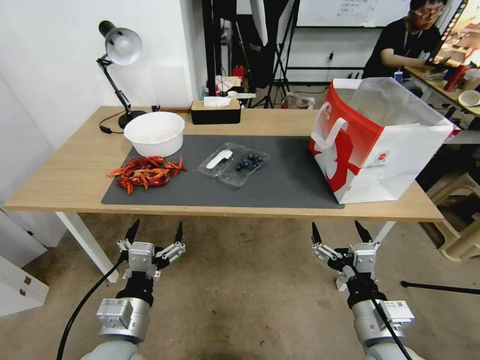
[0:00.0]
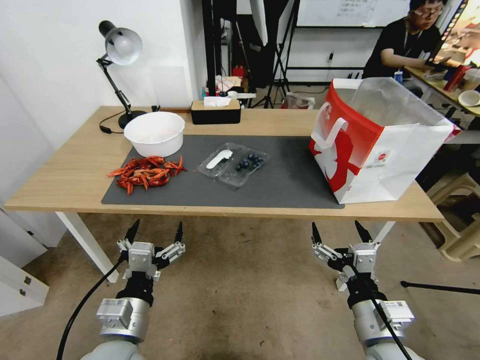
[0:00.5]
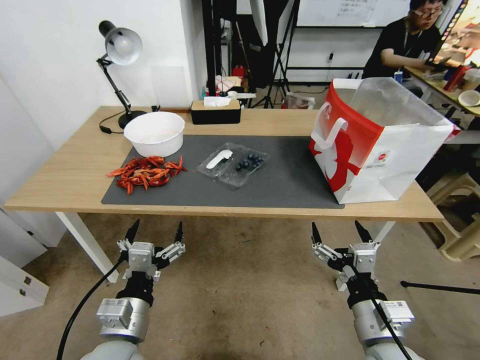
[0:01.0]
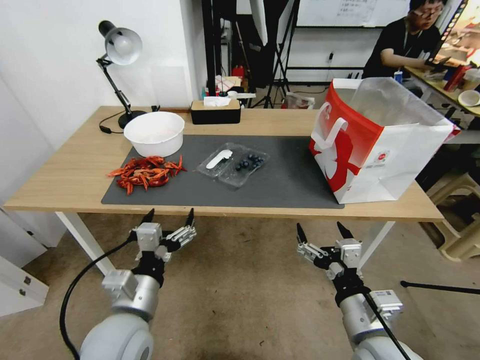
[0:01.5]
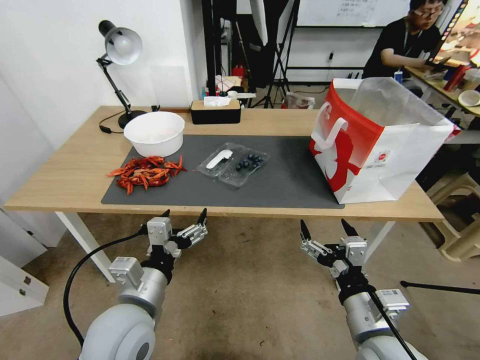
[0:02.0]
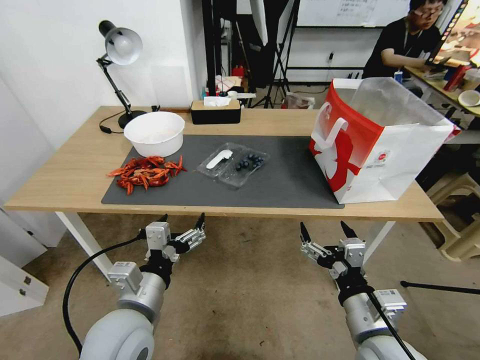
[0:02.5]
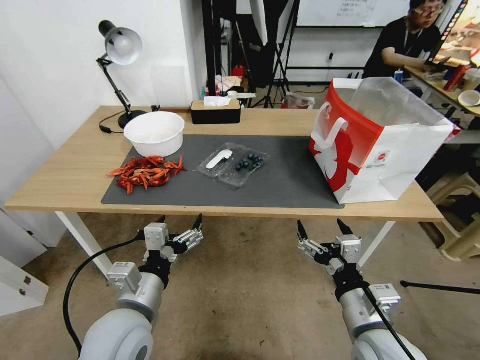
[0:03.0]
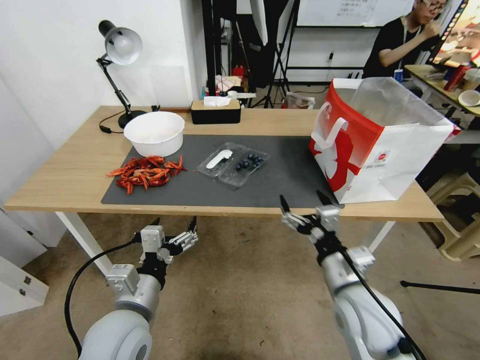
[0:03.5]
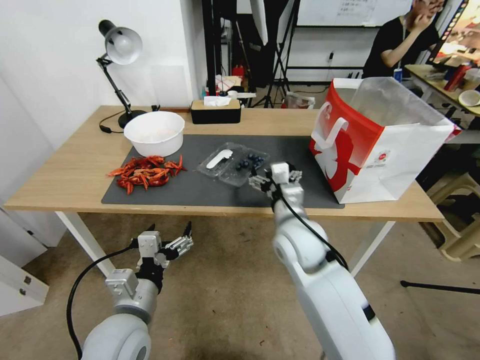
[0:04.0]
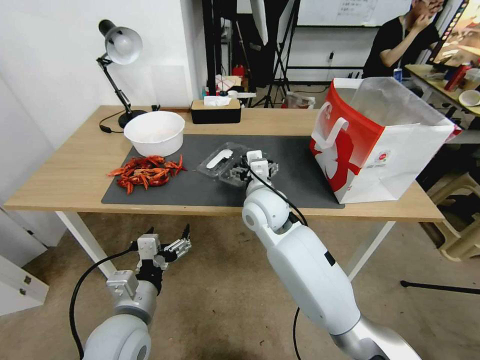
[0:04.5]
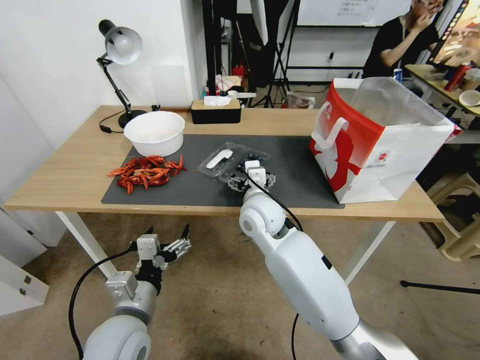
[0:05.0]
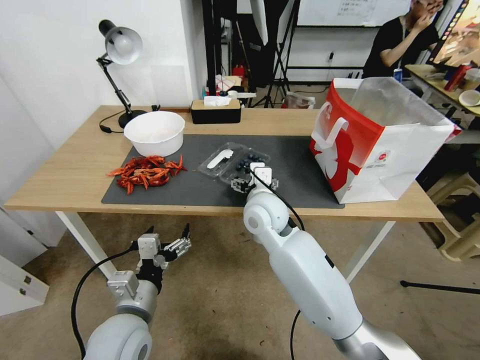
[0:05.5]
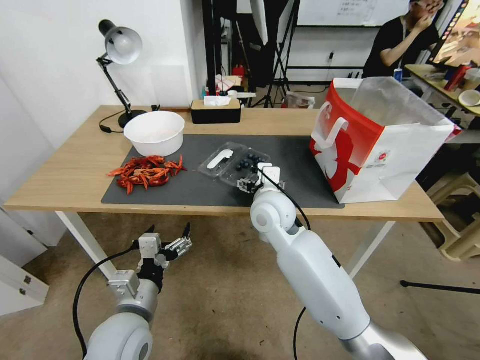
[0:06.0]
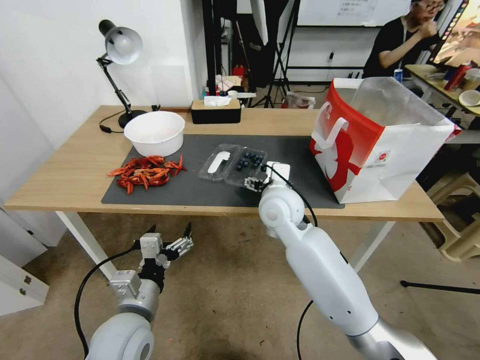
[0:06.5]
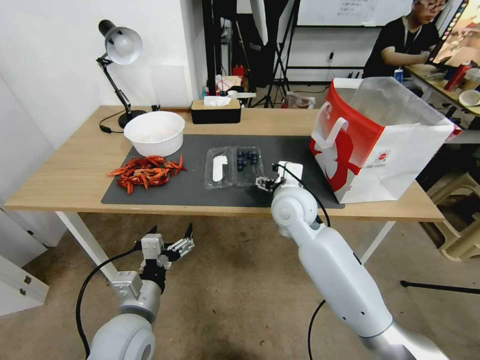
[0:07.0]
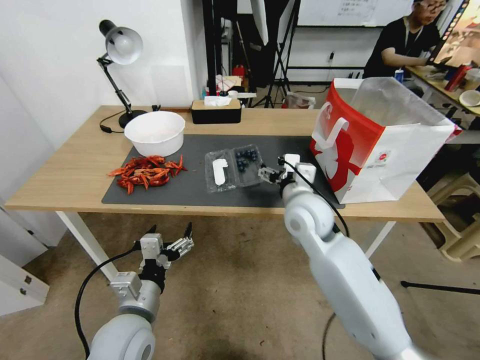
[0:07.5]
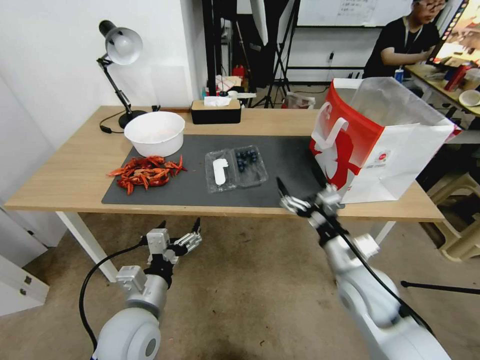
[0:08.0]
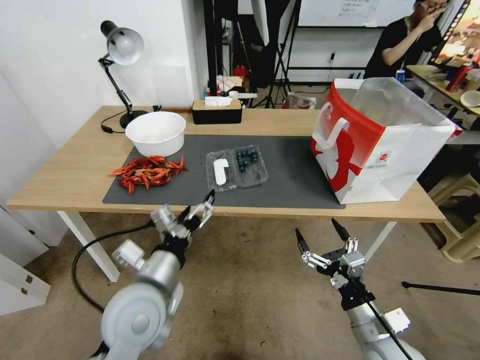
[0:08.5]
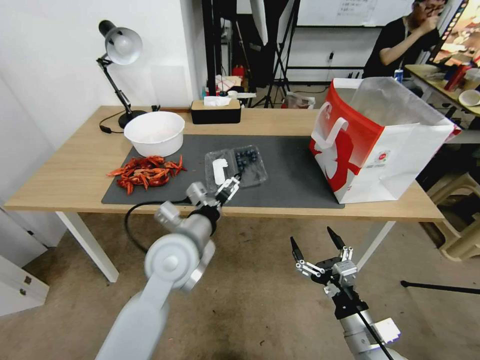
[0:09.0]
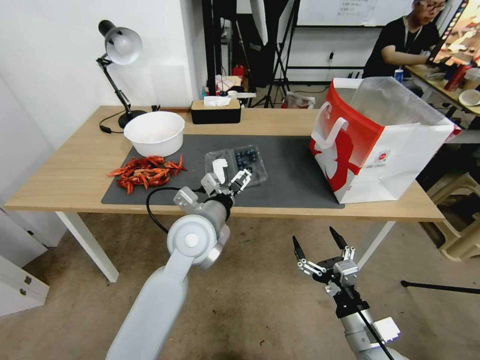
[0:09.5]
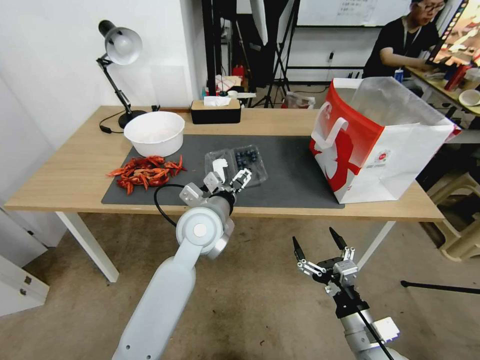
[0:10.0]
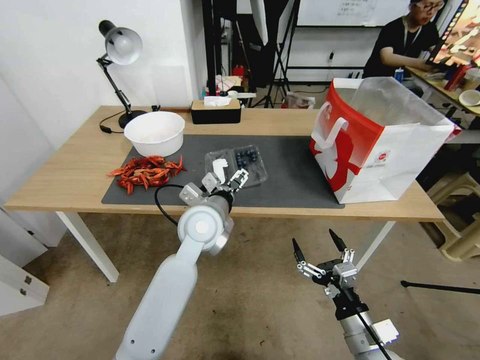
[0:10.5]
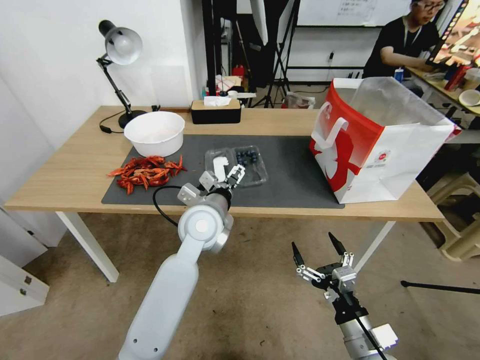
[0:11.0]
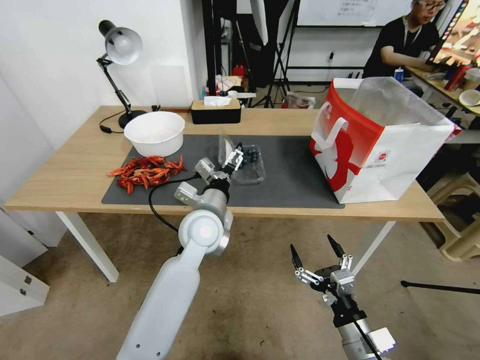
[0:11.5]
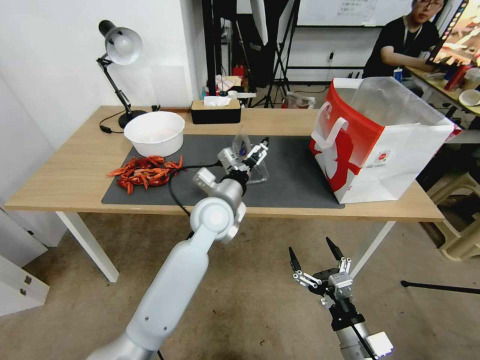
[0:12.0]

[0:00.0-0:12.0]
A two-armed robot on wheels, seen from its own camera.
Task of the whole recording: Close the takeout container lid, then place the container into the takeout bag.
2.0 to 4.0 s: The right gripper heads forward and to the left, covering roughly 20 cm.
4.0 to 6.0 s: The right gripper goes approximately 5 cm forward.
6.0 to 8.0 s: The right gripper shifts some 25 cm to the right and backward.
8.0 to 10.0 s: The left gripper goes about 20 cm forward, to the right and upward; the right gripper shifts roughly 15 cm backward and downward.

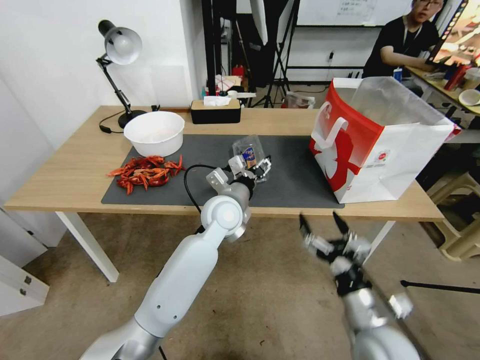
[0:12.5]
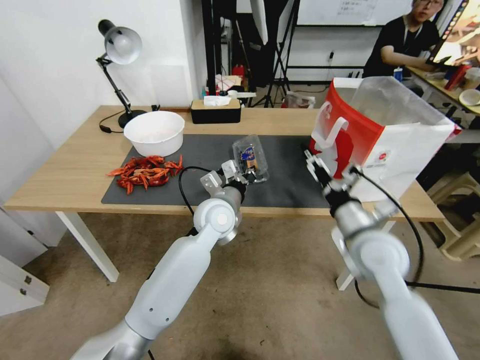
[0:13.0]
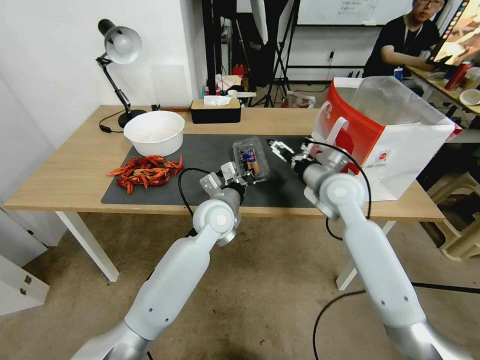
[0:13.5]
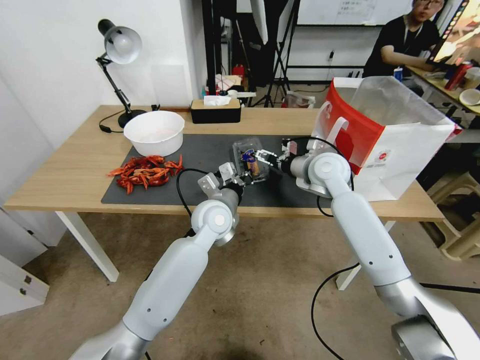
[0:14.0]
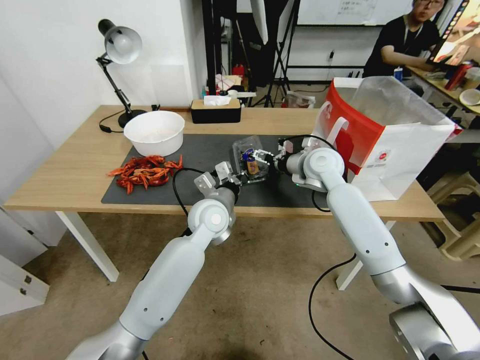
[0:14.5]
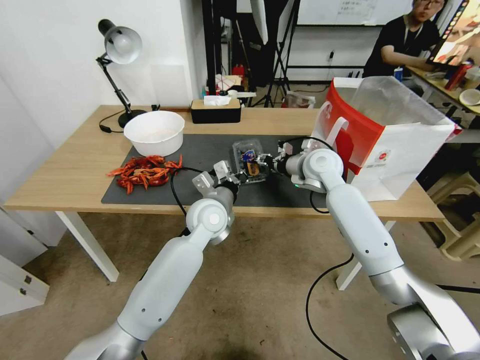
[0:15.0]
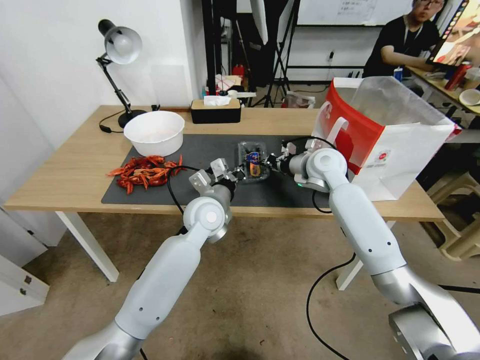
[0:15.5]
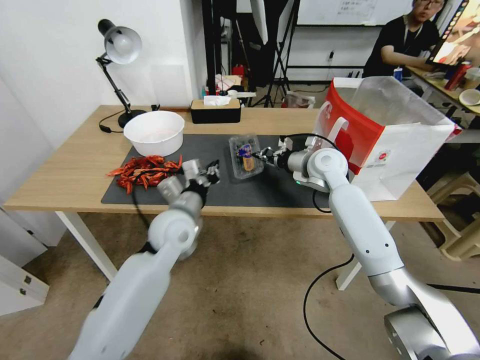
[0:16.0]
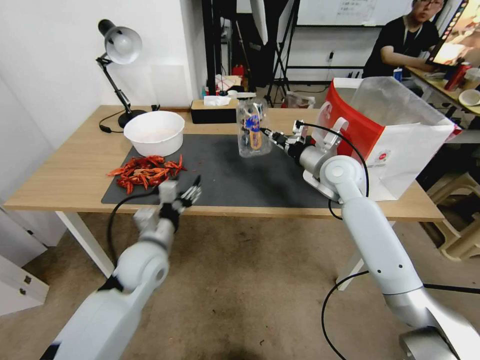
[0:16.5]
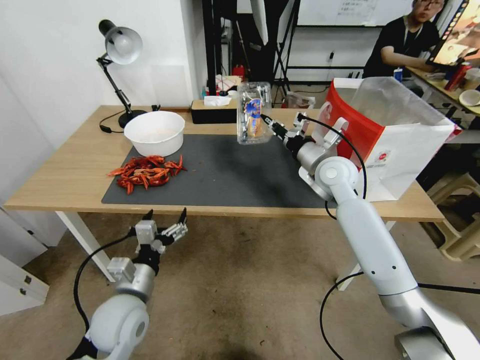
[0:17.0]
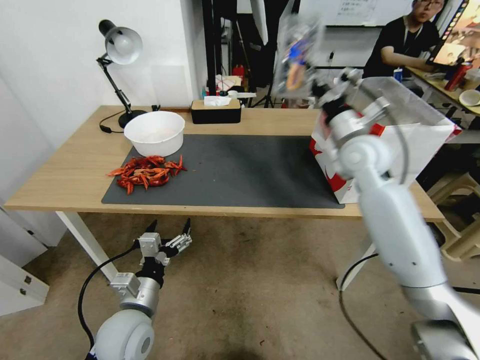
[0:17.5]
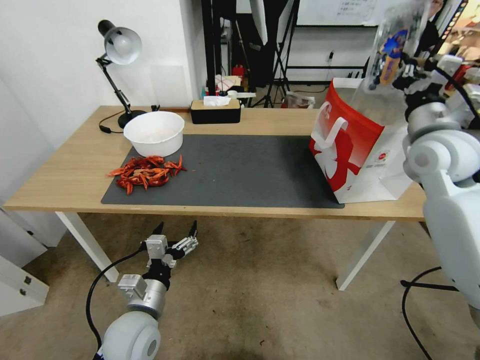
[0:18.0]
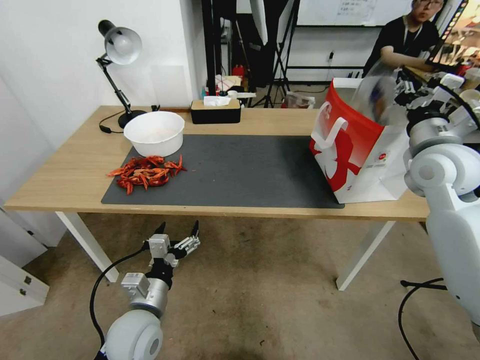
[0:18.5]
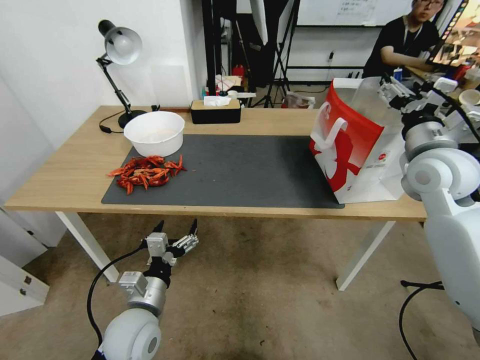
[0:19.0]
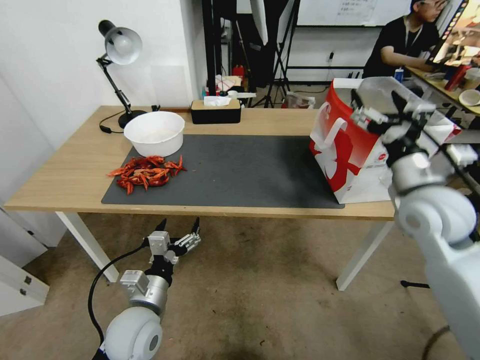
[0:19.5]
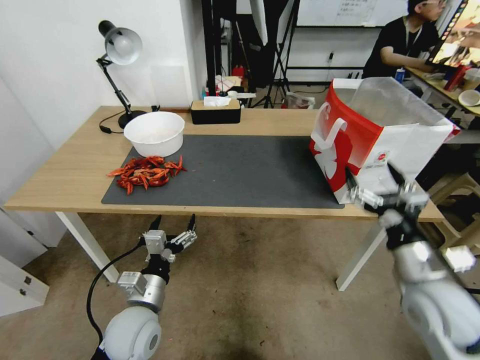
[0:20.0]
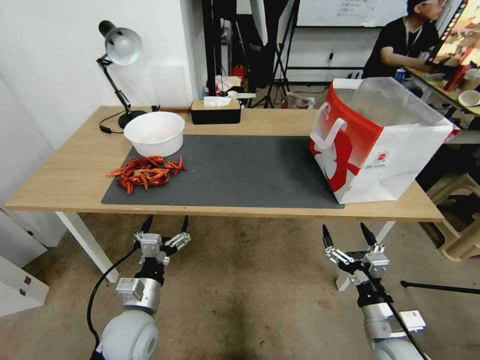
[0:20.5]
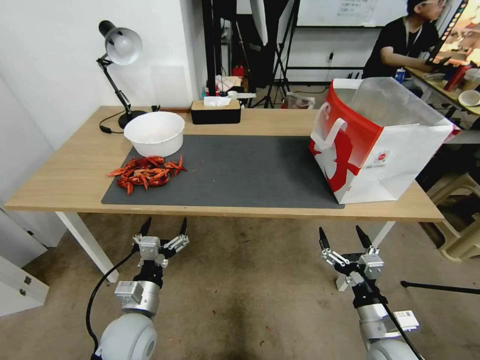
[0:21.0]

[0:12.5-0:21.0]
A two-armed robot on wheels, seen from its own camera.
Task of the whole recording: Close the takeout container lid, then place the container into the takeout bag.
12.5 to 14.5 s: The left gripper closes up. Meanwhile the right gripper shifts approximately 40 cm forward and upward.
14.5 to 16.5 s: The right gripper closes up. Meanwhile the left gripper shifts approximately 15 cm to the left and backward, and opens up.
16.5 to 19.0 s: The left gripper shifts about 15 cm backward and downward, and opens; the right gripper shifts approximately 15 cm to the right, upward and backward, and opens its fingers.
19.0 to 21.0 s: The right gripper heads downward and backward, covering approximately 35 cm.

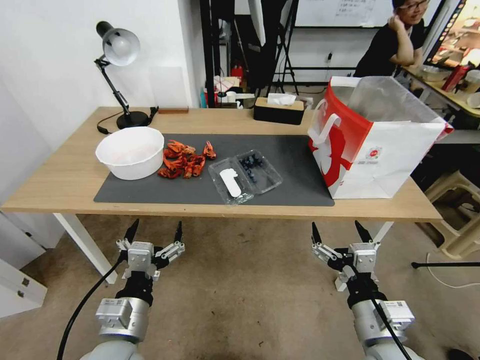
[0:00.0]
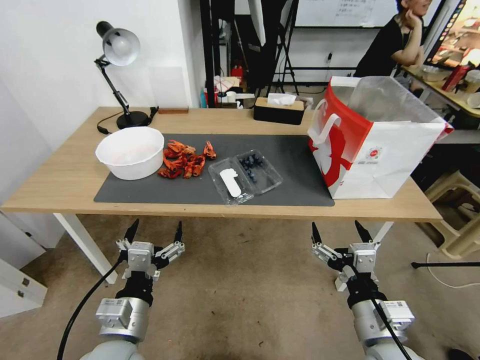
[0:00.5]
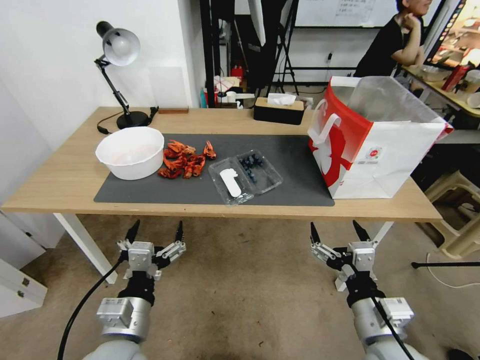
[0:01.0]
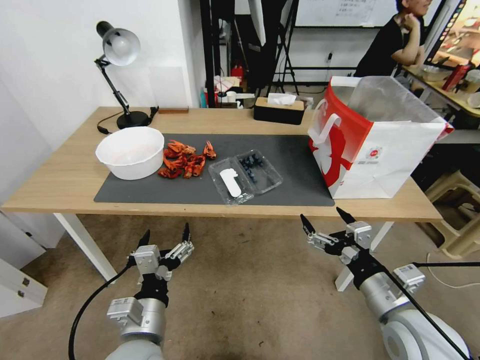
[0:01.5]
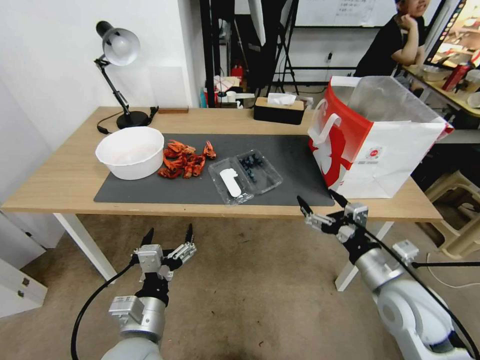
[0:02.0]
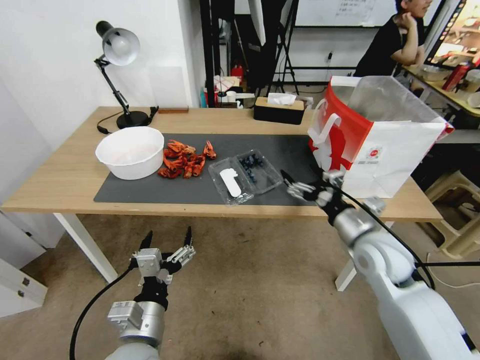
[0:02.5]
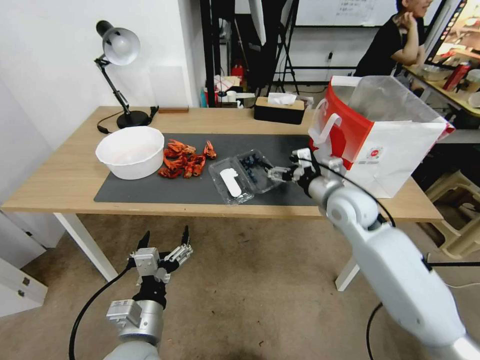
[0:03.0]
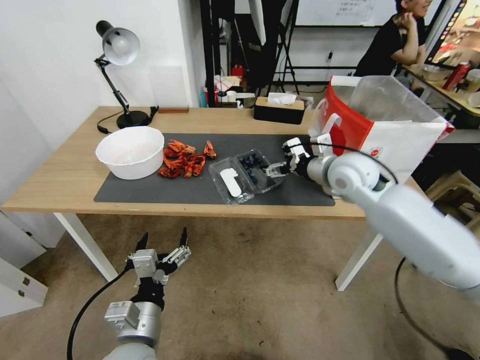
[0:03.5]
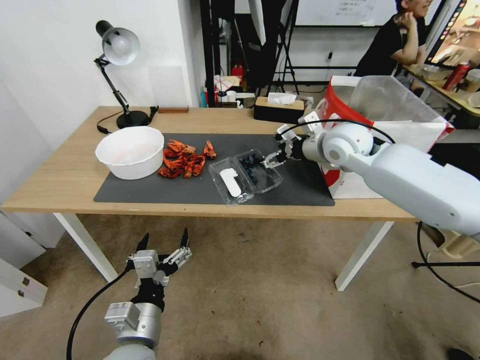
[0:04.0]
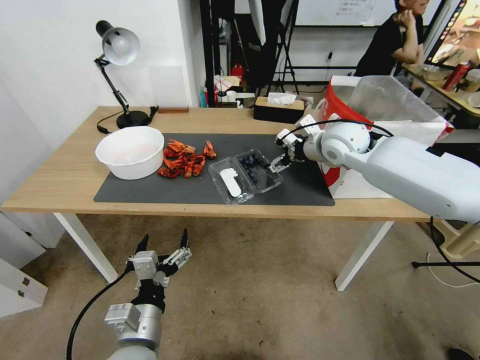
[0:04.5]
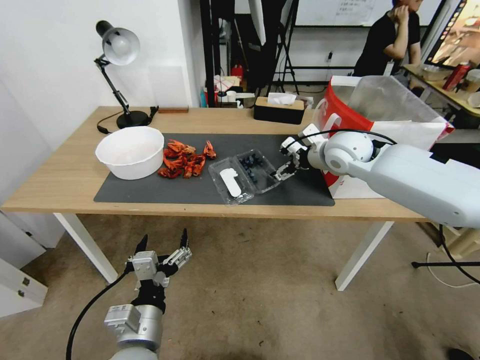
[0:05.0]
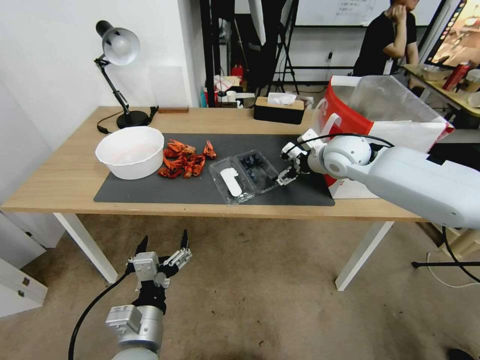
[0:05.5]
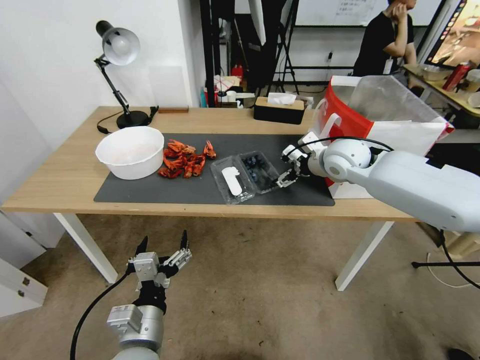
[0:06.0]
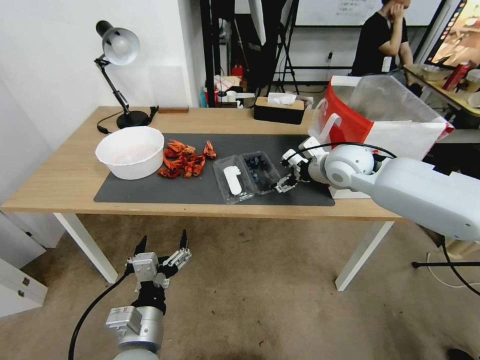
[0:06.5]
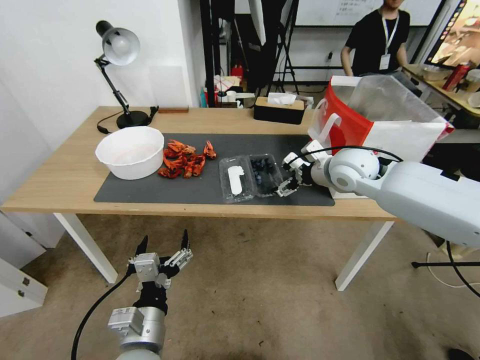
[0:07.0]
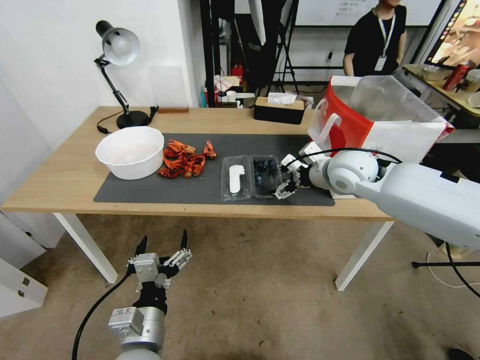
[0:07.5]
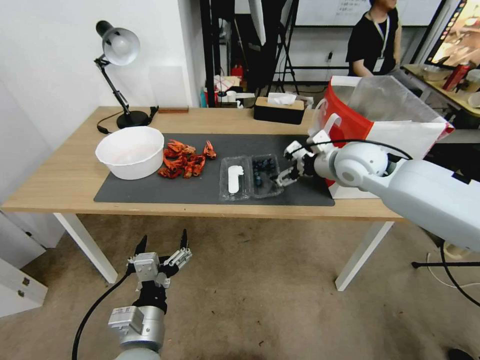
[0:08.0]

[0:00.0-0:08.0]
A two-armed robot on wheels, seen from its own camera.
Task of the whole recording: Close the takeout container lid, then place the container into the takeout bag.
2.0 to 4.0 s: The right gripper is displaced forward and upward by about 30 cm.
4.0 to 8.0 s: The grippers stay close to where they were, moving slightly.
